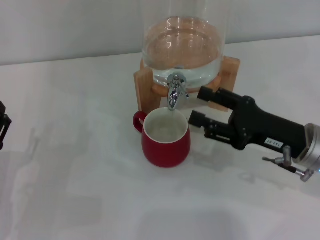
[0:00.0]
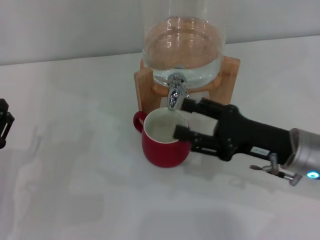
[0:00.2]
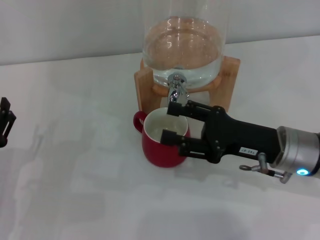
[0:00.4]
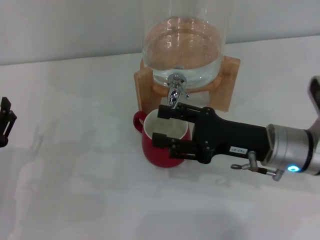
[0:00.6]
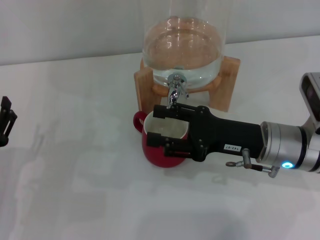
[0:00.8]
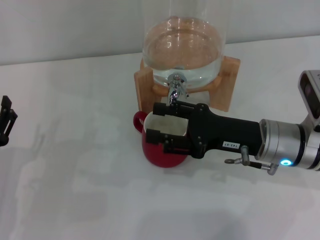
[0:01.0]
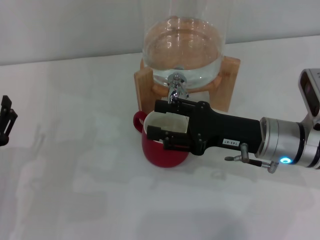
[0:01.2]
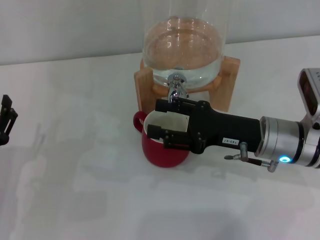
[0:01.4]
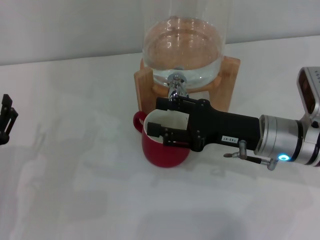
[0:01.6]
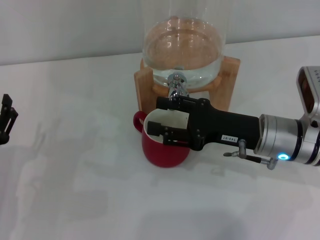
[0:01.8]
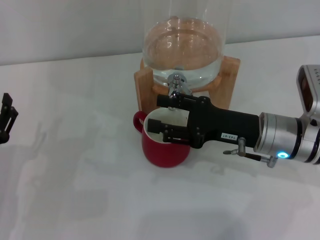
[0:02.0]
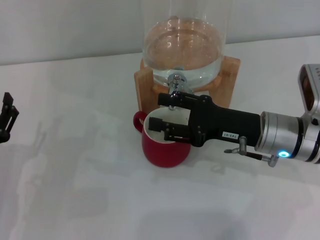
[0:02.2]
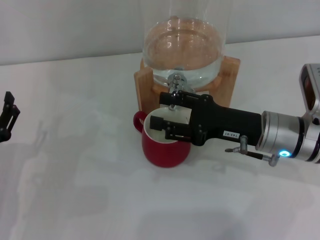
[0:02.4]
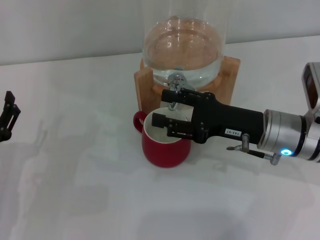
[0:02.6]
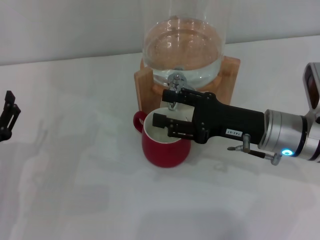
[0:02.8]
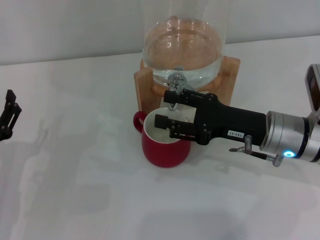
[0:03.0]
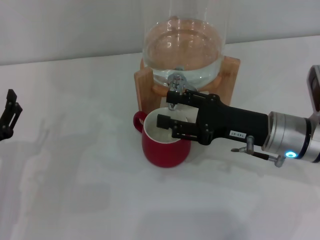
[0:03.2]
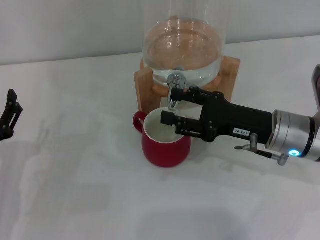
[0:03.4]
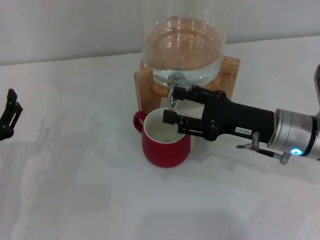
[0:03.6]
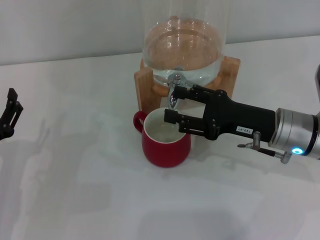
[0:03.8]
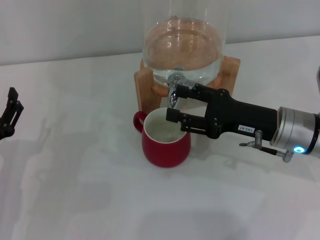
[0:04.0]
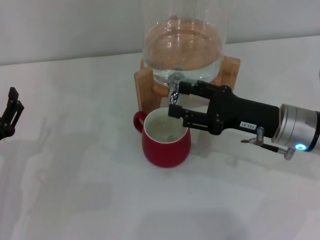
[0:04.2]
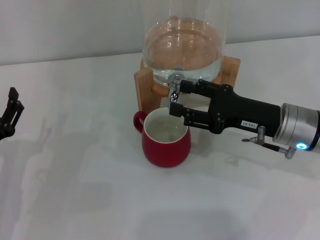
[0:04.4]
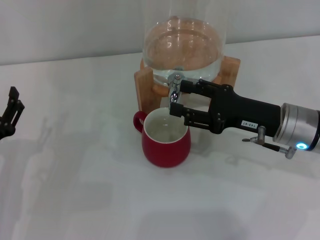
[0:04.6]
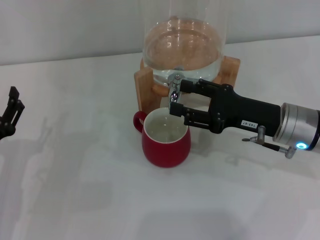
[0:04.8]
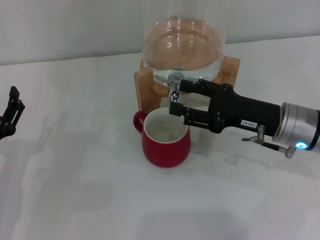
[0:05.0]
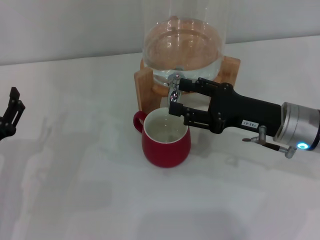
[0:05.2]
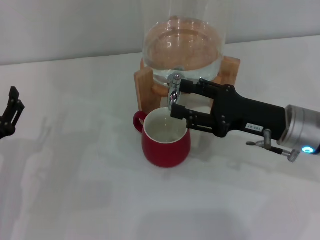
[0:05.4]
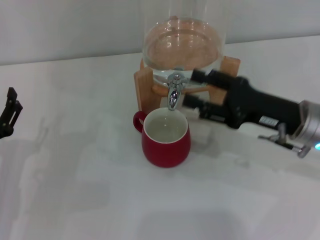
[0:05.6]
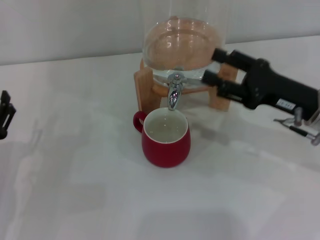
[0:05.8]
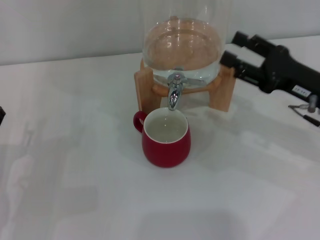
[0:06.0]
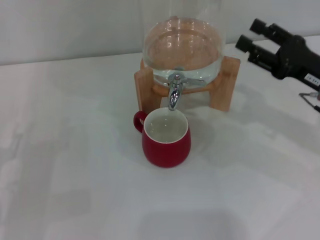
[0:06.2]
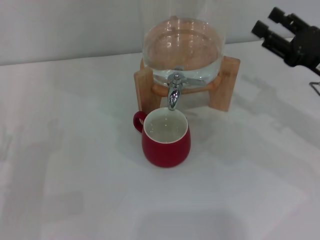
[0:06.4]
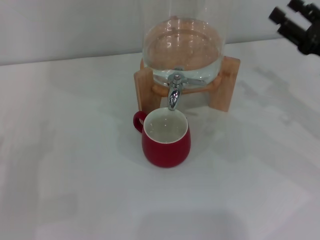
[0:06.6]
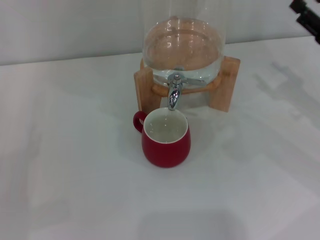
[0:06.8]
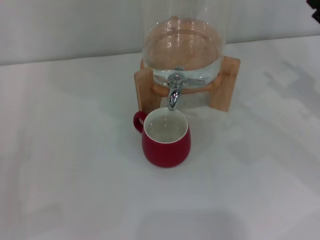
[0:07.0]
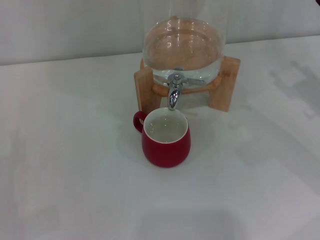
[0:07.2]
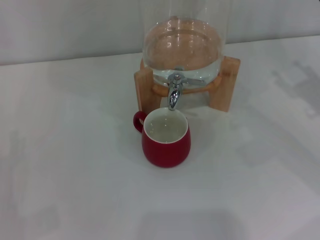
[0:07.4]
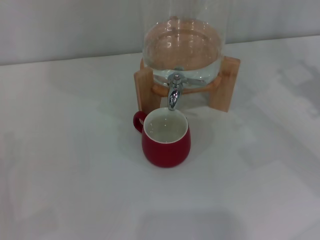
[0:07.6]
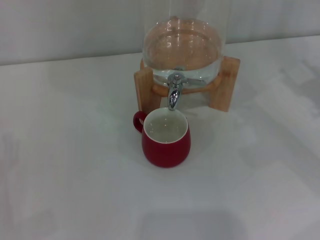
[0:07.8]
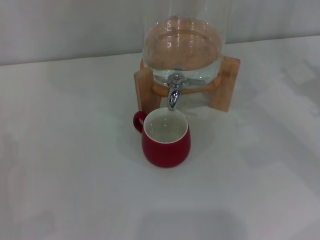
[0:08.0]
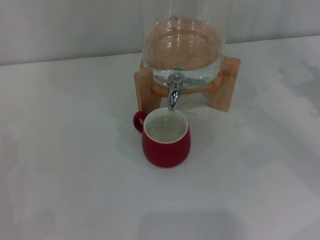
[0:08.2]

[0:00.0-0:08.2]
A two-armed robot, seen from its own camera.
Task of the whole recording: the left gripper pick up the red cup and place it horizontally under the faucet, the right gripper turn on the faucet to fill the cup, and then turn off the faucet.
Step, 0:01.2 to 0:05.8: Close the dispenser valve with the right gripper.
0:00.0 to 0:01.6: The right gripper ends up approximately 5 cm from where it was.
0:01.6 to 0:03.2: The two grippers keep their place.
0:03.2 to 0:05.0: The grippers make only small movements.
0:05.0 to 0:06.6: The left gripper shifts by about 5 cm. Meanwhile the right gripper goes some 10 cm to the right.
0:06.6 to 0:08.2: The grippers make only small movements.
